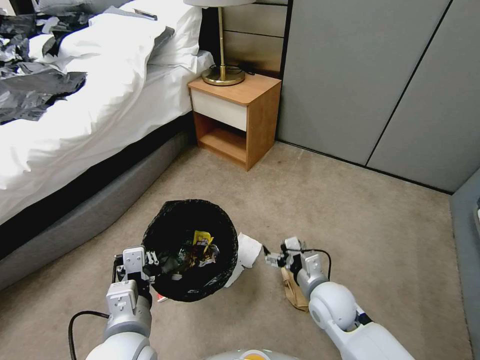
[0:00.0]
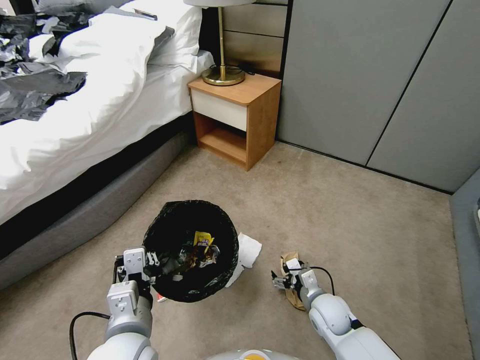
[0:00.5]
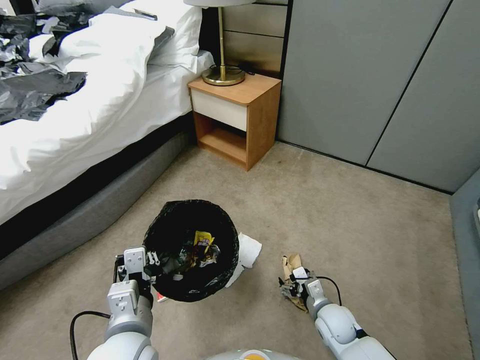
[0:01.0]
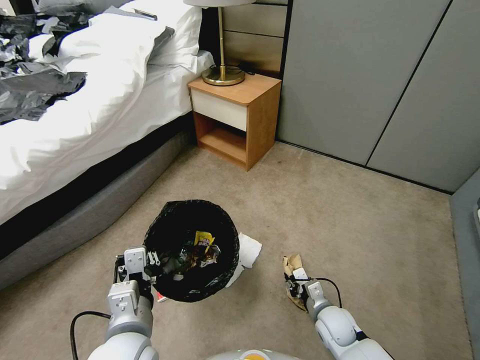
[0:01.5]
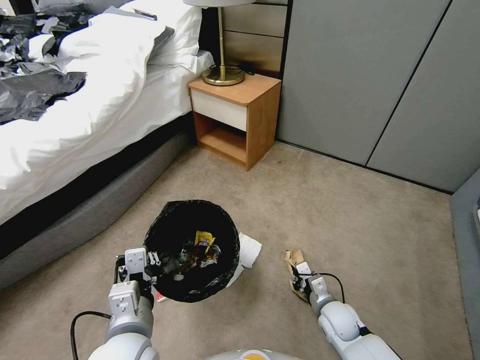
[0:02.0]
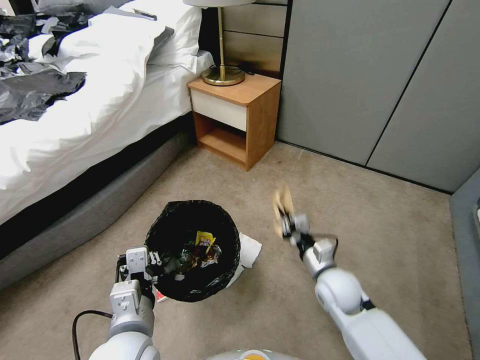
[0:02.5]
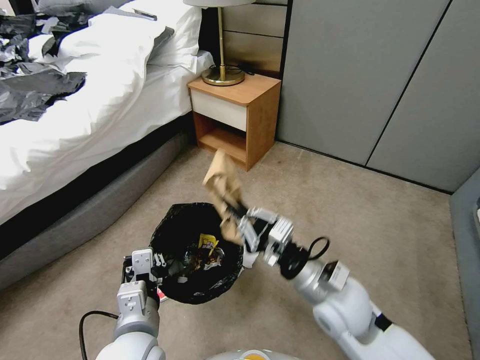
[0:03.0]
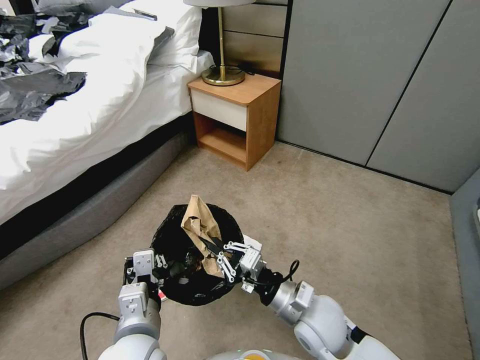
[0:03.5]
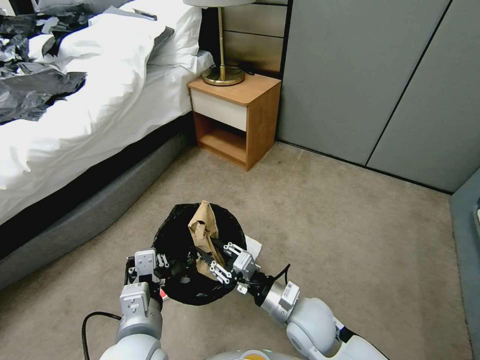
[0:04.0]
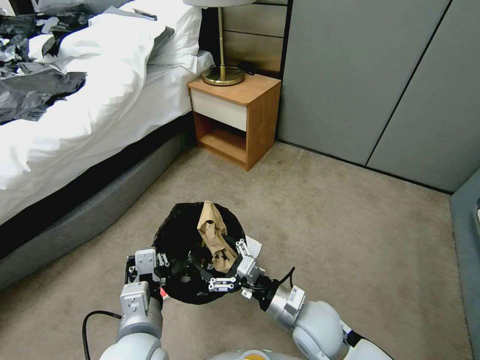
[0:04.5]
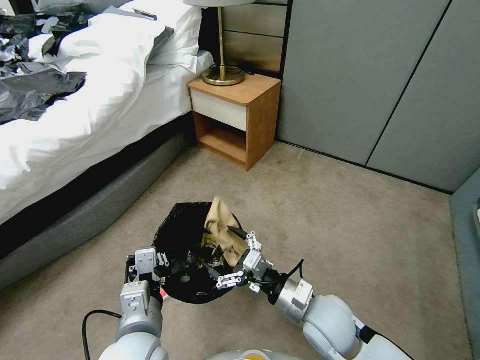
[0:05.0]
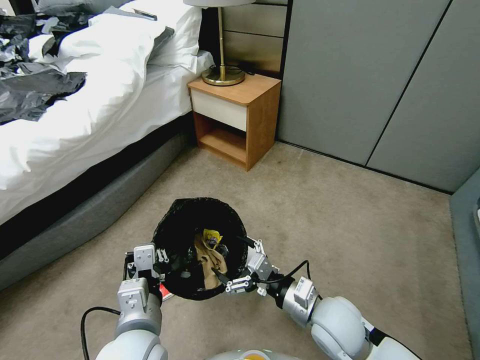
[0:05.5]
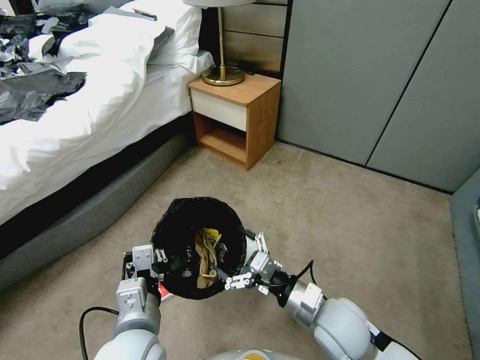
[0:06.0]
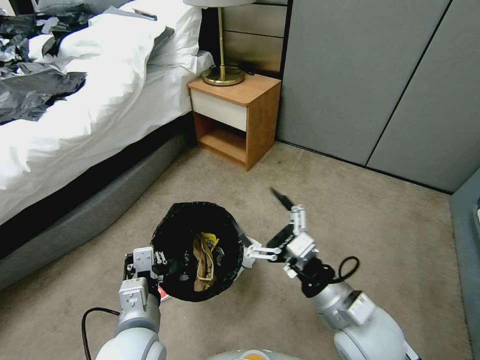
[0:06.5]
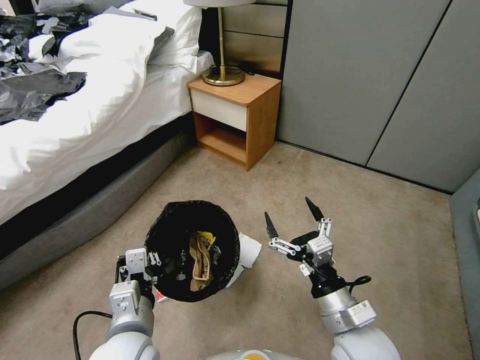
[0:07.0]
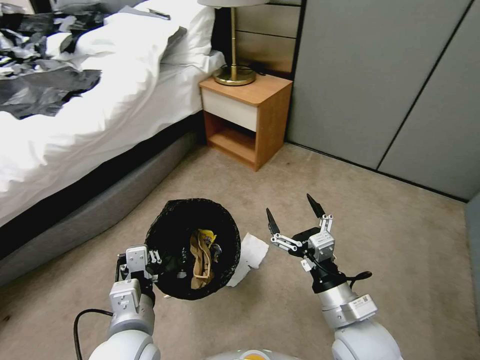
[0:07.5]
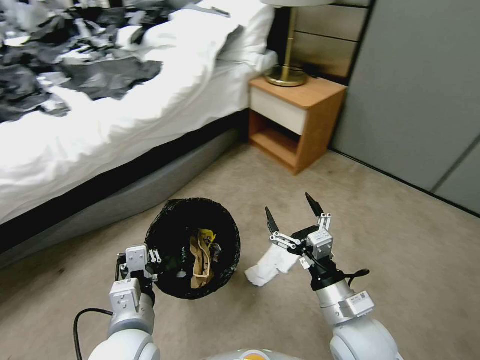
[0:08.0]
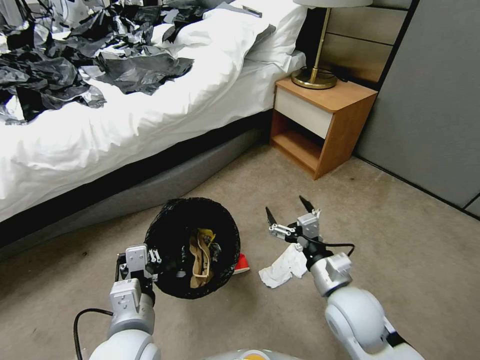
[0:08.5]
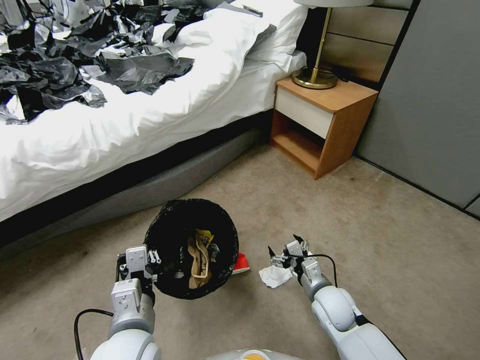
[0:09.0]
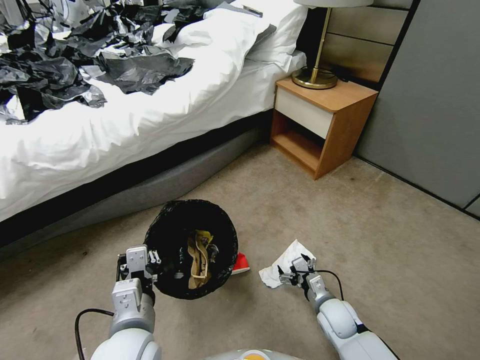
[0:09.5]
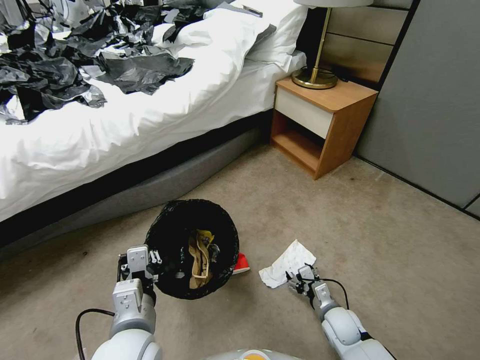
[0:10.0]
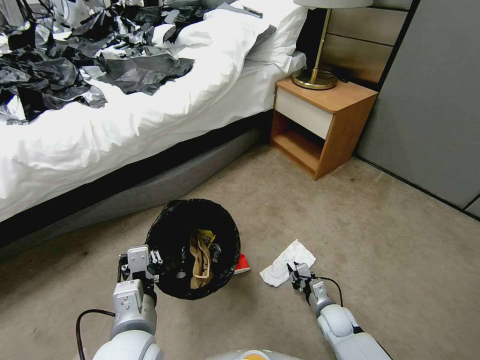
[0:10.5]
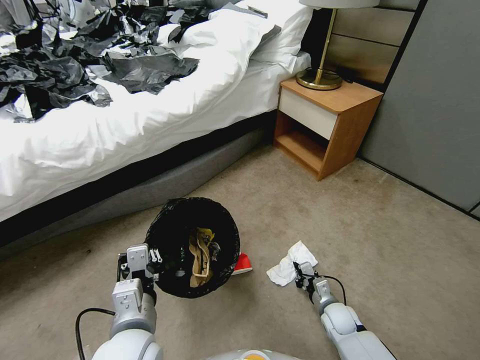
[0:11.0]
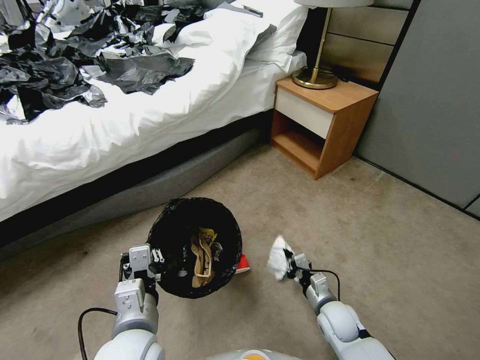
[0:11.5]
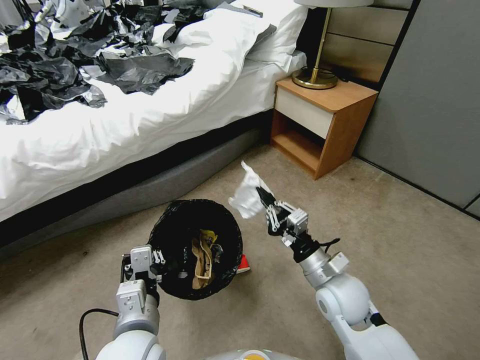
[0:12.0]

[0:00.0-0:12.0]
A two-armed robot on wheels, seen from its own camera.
Task of the whole recording: Pick up the trash bin, then pick up the garbage from the floor and place it into the trash bin.
0.0 to 2.0 s: The right gripper heads downward, covering approximately 10 cm, and closes up.
2.0 to 4.0 s: The right gripper is displaced upward and to the left by some 20 cm, and opens.
4.0 to 6.0 s: The right gripper ends up about 5 cm from where it was, and opens.
8.0 to 10.0 s: The right gripper goes roughly 25 cm downward.
10.0 to 12.0 s: The right gripper goes approximately 25 cm upward, and closes up.

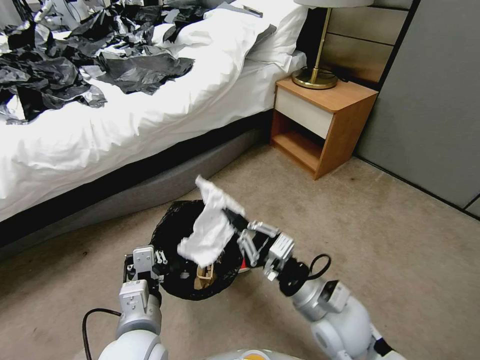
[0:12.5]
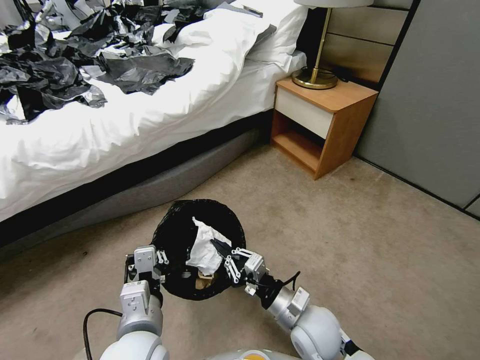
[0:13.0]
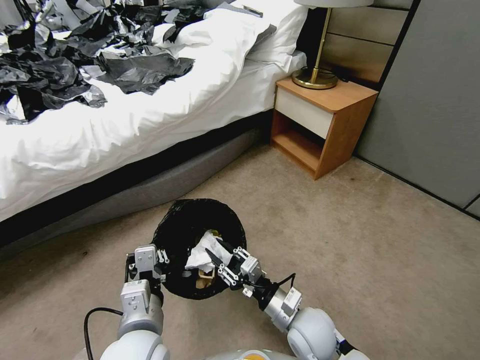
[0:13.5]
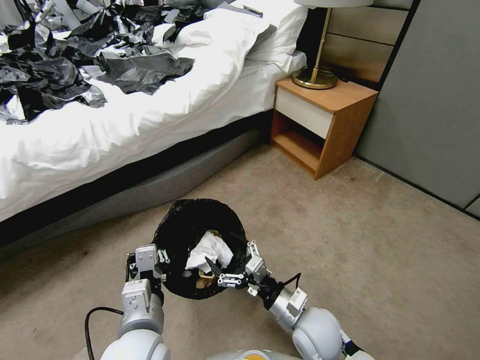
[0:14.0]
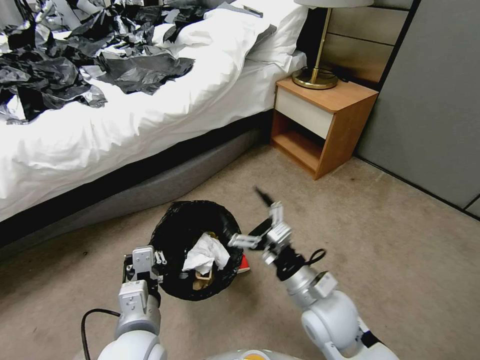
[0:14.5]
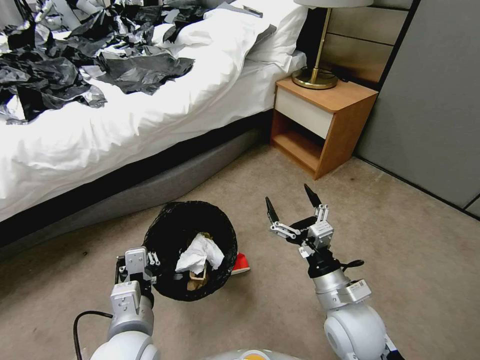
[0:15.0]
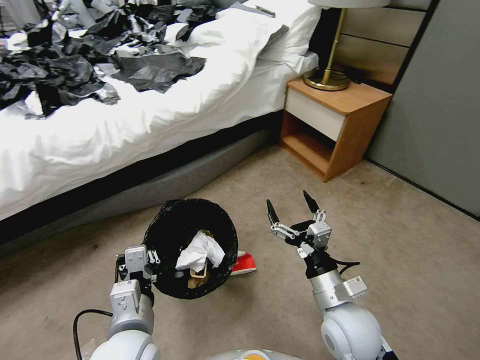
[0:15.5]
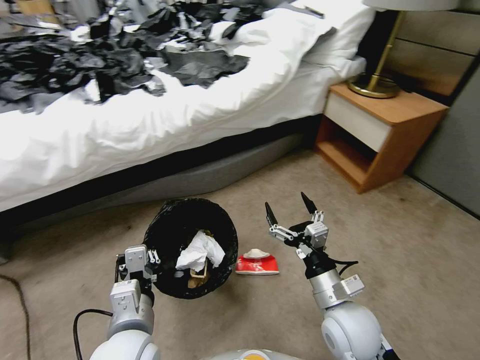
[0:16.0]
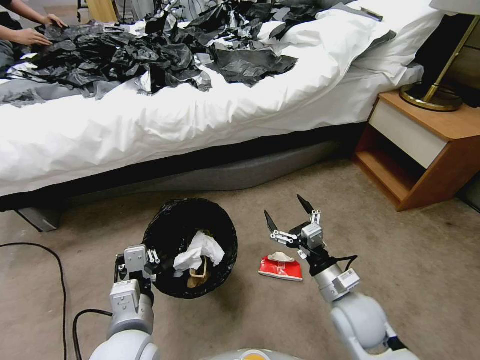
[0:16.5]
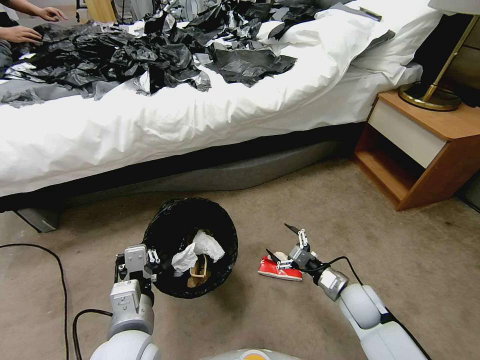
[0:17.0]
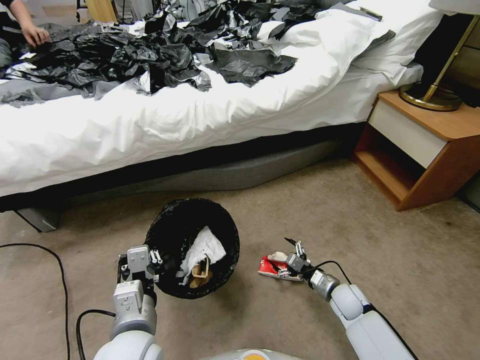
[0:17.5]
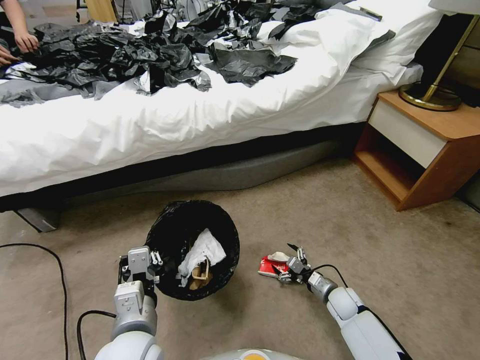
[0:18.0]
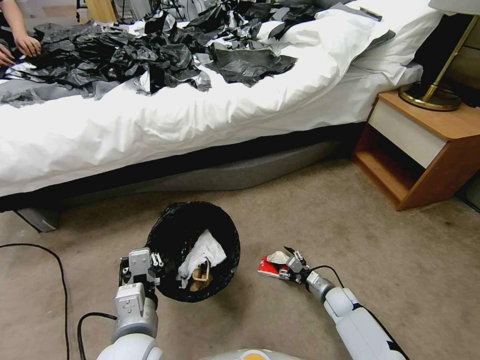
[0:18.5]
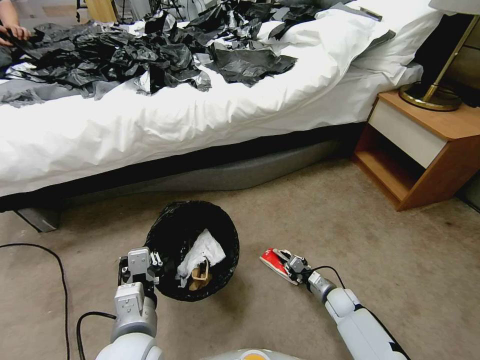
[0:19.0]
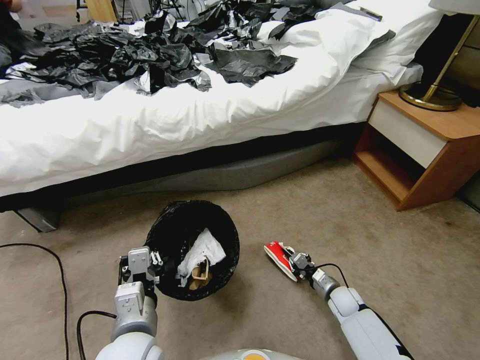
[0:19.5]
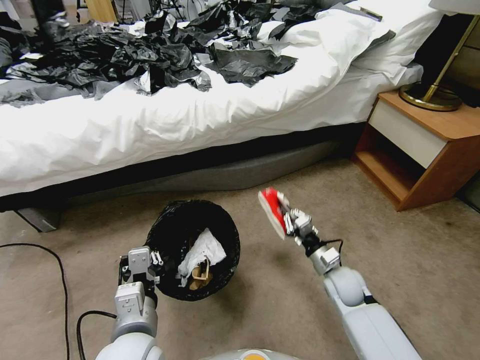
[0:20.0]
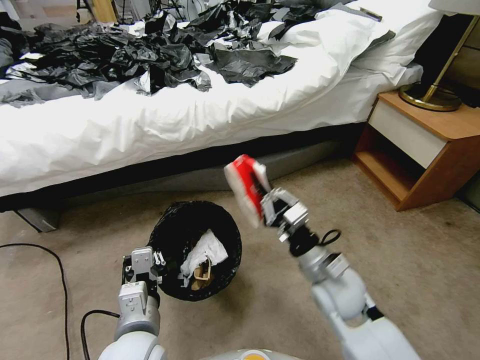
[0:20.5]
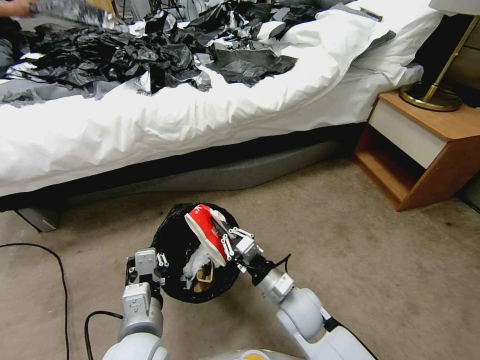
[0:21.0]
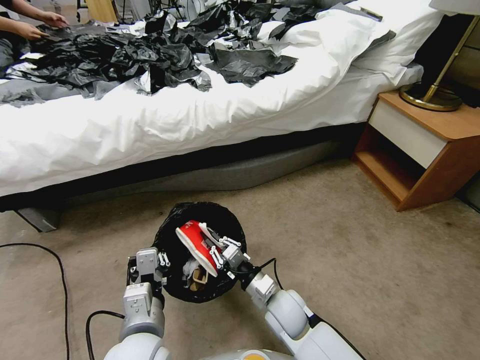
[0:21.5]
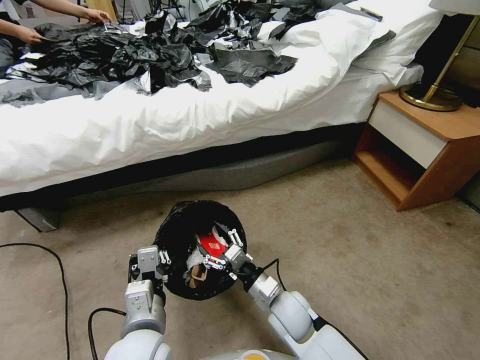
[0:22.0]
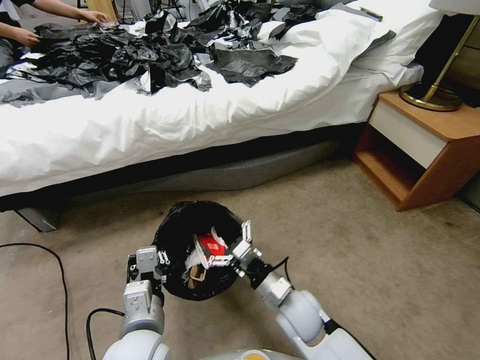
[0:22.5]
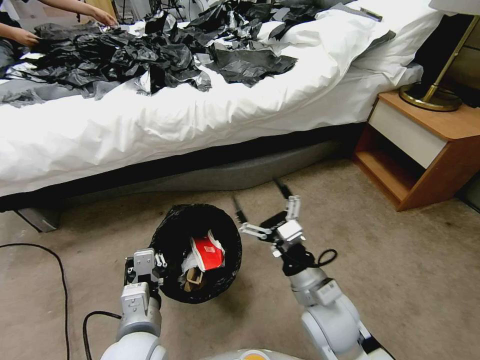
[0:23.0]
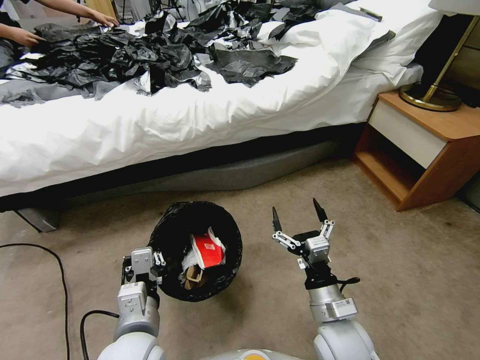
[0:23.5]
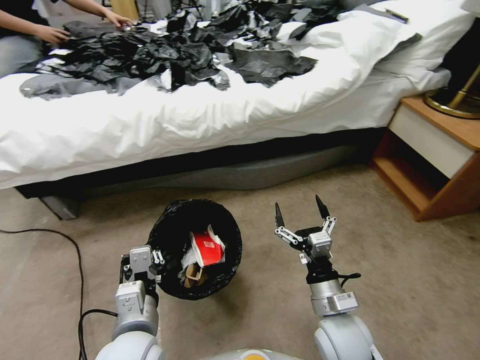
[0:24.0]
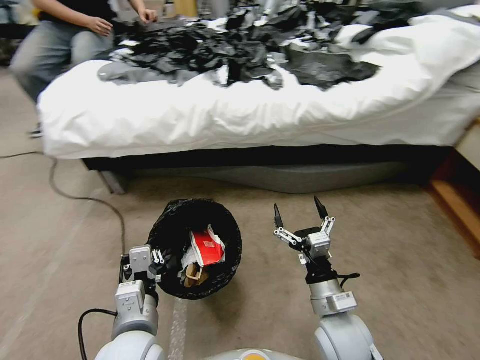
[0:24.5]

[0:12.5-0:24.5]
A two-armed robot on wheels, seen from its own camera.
Task of the whole recording: Pick up the trash bin, then pick up the garbage from the floor and place it into the trash bin.
12.5 to 14.5 s: The right gripper goes downward and returns, about 10 cm each way, and opens its fingers.
14.5 to 16.5 s: The right gripper shifts about 5 cm to the right.
16.5 to 18.5 s: The right gripper travels downward by roughly 25 cm.
18.5 to 20.5 s: The right gripper moves upward and to the left, approximately 30 cm, and closes its fingers.
20.5 to 22.5 s: The right gripper is displaced downward and to the left by some 10 cm, and opens.
22.5 to 24.5 s: The right gripper travels to the right by some 5 cm.

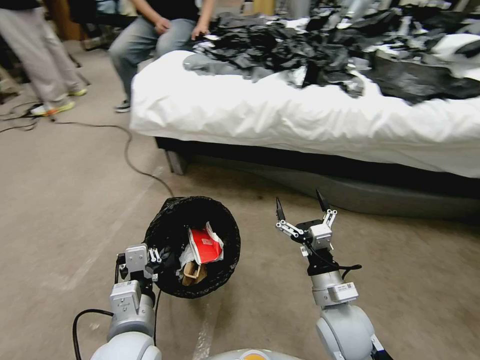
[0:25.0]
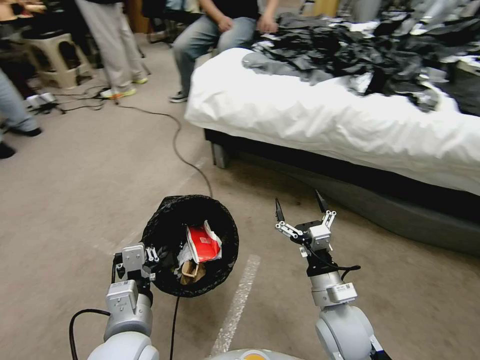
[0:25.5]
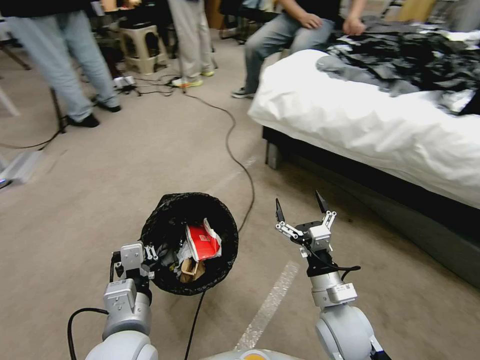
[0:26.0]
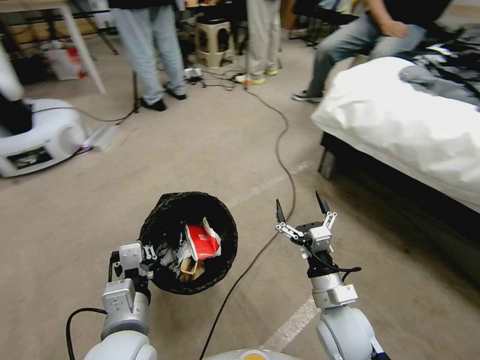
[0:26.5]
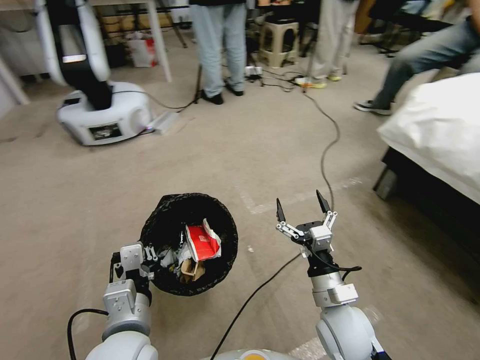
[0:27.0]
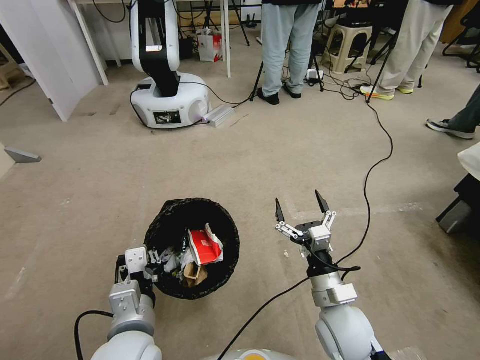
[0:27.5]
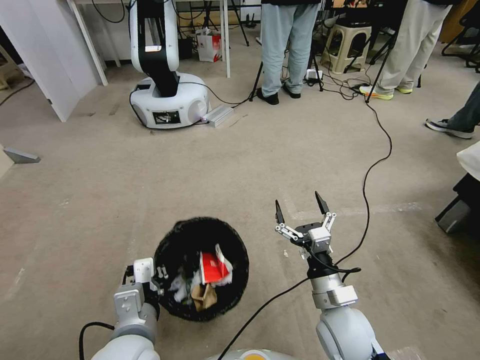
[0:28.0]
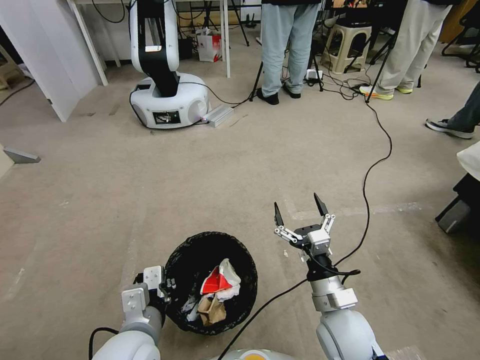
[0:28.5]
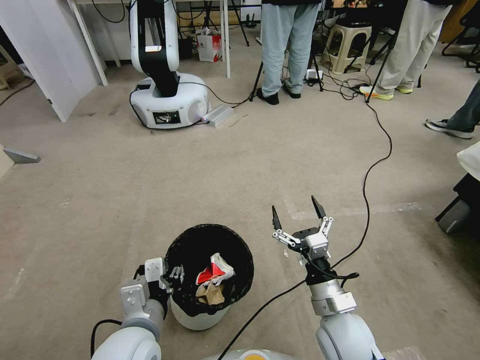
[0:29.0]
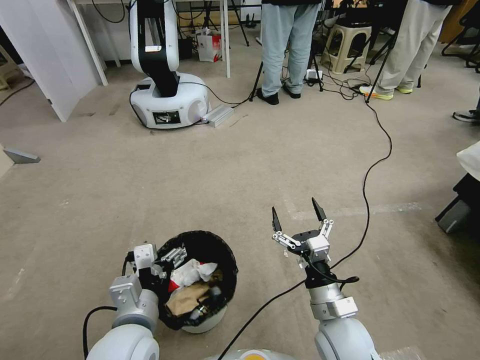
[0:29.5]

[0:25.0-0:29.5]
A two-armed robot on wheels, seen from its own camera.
Task of the whole recording: Pick up the trash bin, then pick up the garbage from the floor and place it into the trash bin.
27.0 to 29.5 s: The left gripper opens up.
